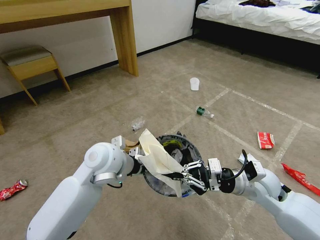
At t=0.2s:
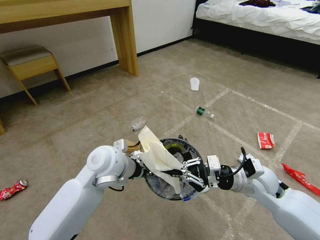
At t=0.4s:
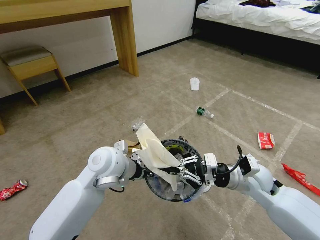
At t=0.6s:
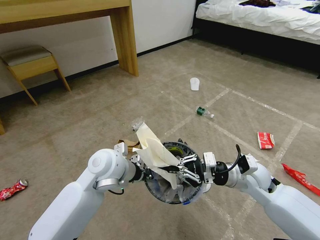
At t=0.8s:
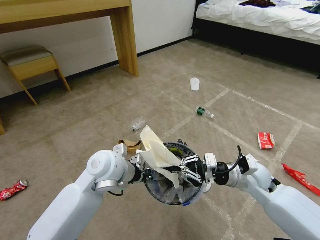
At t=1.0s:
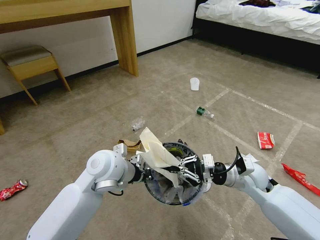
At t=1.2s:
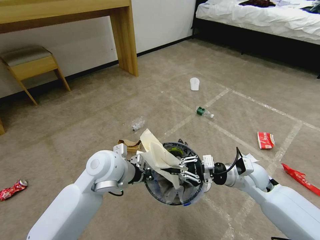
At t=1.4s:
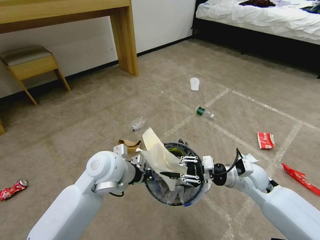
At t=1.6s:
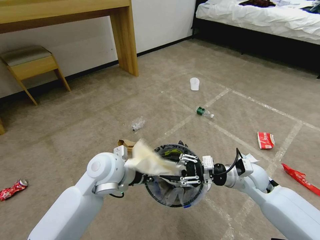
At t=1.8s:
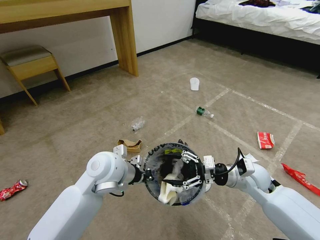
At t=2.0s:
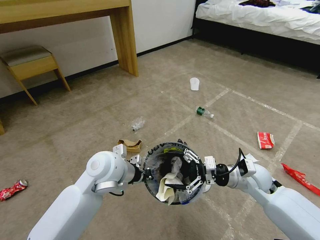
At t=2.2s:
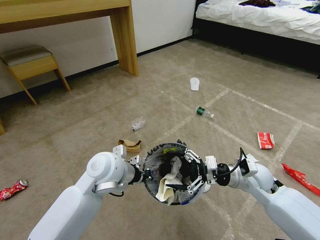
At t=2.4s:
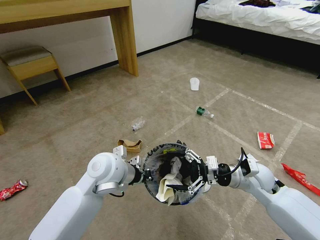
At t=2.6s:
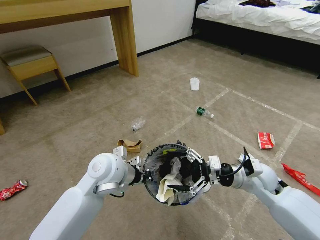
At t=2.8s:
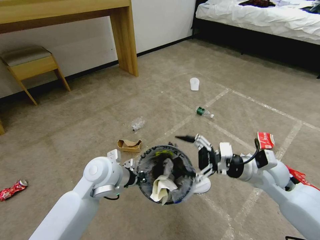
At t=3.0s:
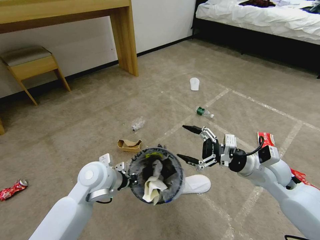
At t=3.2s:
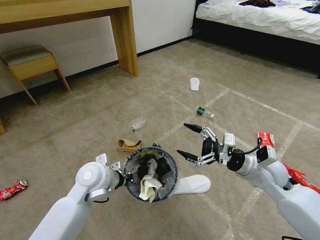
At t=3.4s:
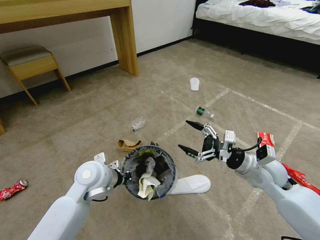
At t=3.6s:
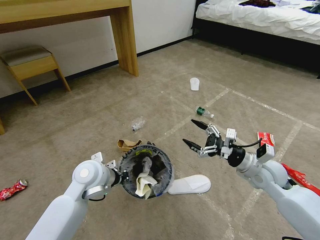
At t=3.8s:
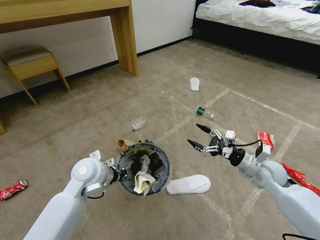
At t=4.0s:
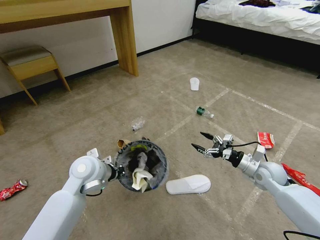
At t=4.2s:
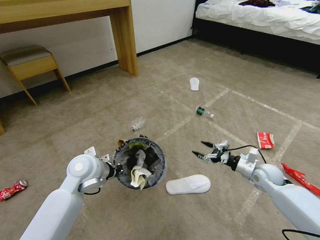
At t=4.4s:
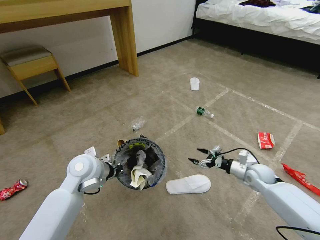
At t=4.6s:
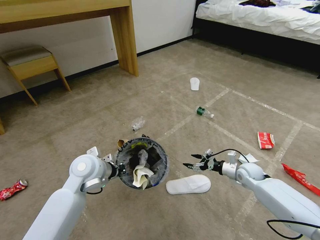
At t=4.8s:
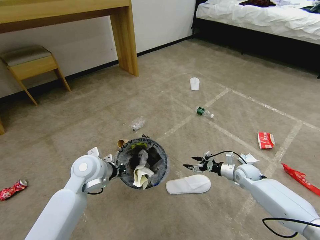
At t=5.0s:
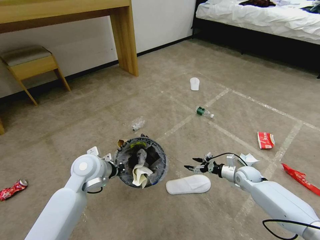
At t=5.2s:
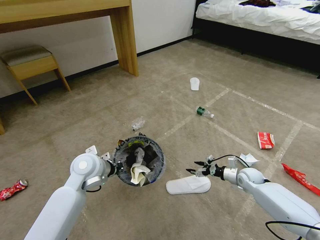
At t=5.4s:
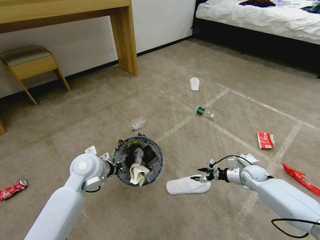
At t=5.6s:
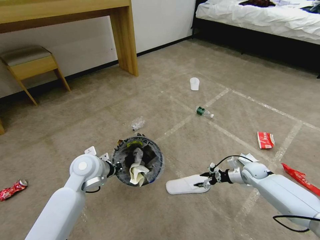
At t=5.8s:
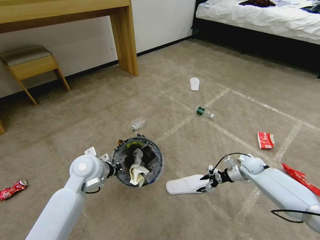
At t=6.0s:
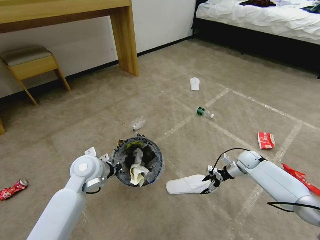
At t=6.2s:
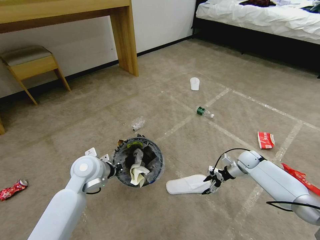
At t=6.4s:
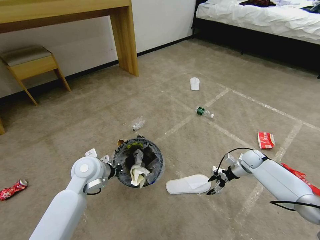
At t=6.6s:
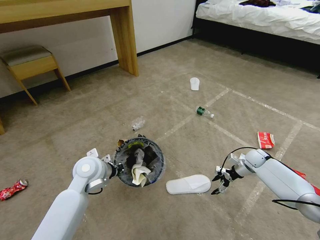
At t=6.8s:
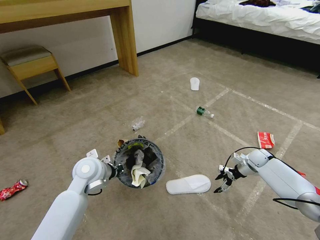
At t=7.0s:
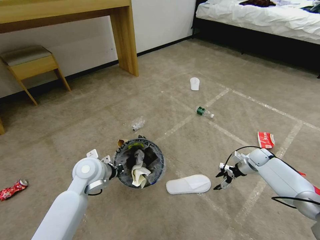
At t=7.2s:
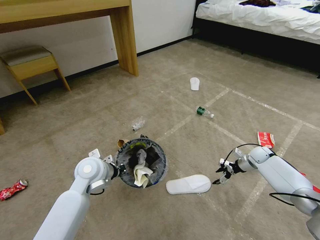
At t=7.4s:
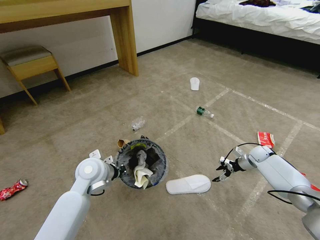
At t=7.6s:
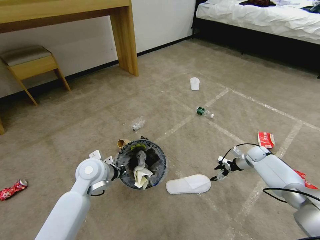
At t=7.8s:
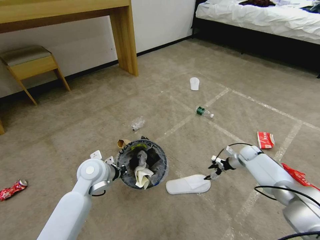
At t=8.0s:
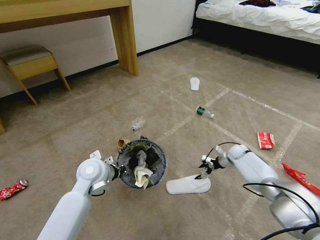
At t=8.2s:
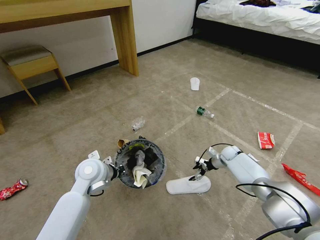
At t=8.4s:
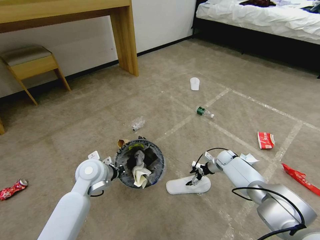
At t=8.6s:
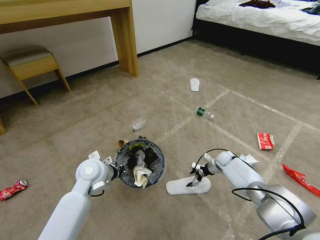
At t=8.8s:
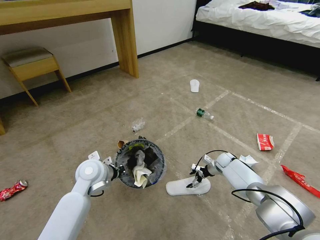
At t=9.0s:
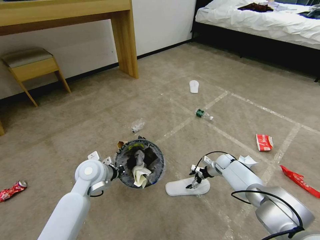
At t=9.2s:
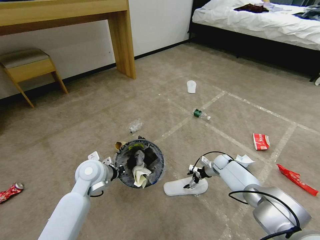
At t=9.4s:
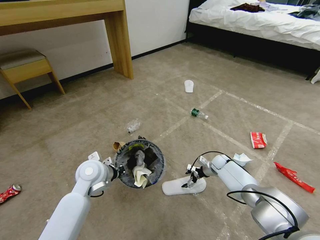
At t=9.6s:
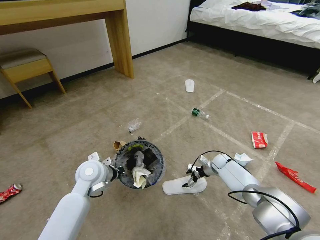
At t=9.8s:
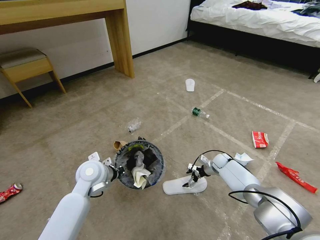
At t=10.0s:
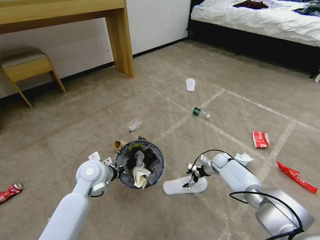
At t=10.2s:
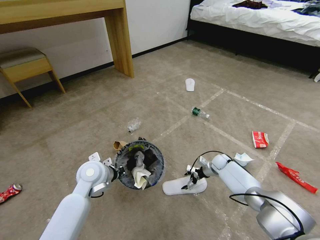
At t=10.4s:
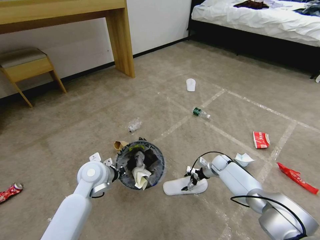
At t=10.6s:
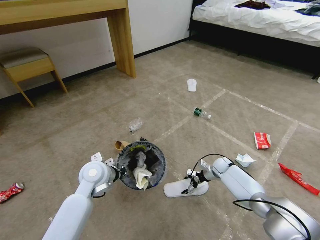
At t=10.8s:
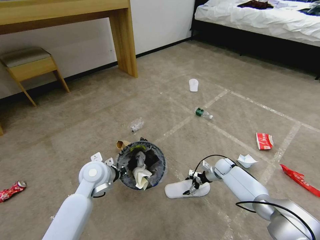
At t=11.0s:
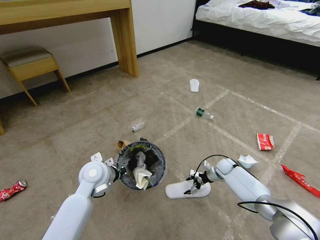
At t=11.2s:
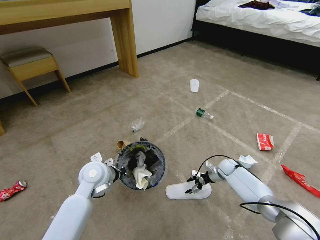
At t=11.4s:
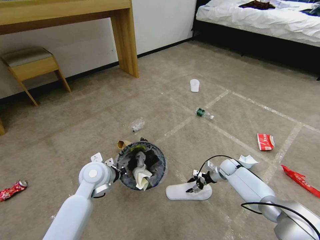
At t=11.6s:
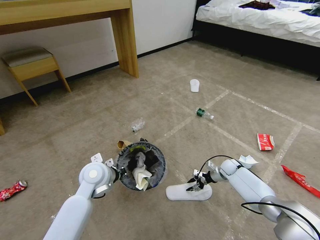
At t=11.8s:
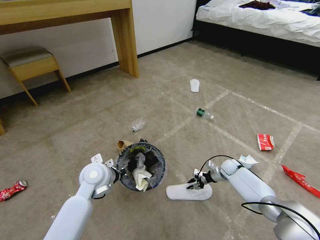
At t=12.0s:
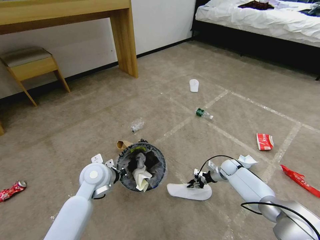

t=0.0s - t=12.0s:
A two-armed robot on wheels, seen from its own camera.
Task of the whole recording: Pick up the trash bin and place the garbage on the floor into it.
t=0.0s - t=1.6s: The right gripper opens its fingers.
t=1.6s - t=3.0s: The left gripper shifts by approximately 5 cm; the right gripper moves upward, approximately 5 cm, and opens up.
t=3.0s - t=4.4s: The right gripper is displaced downward, to the right and forward by about 20 cm. The left gripper ends up approximately 5 cm from where it was.
t=4.4s - t=6.0s: The right gripper heads forward, covering approximately 10 cm.
t=6.0s - t=7.6s: The right gripper is displaced to the right by about 5 cm.
t=7.6s - t=9.0s: The right gripper travels to the left and downward by about 15 cm.
t=9.0s - t=10.4s: The grippers stay close to where they were, moving slightly.
t=10.4s - t=12.0s: The right gripper closes its fingers.

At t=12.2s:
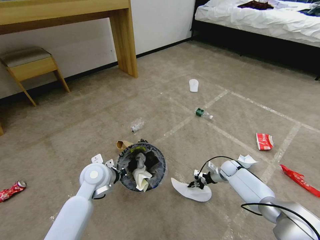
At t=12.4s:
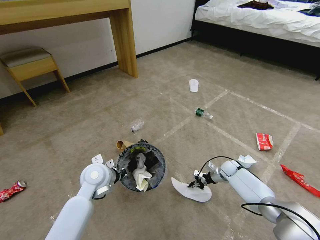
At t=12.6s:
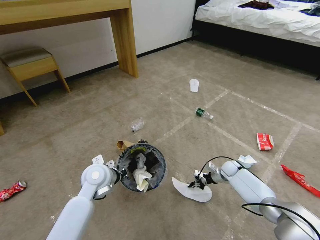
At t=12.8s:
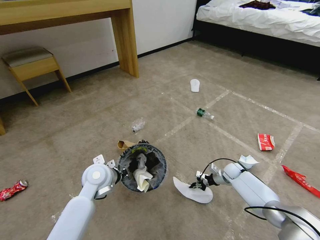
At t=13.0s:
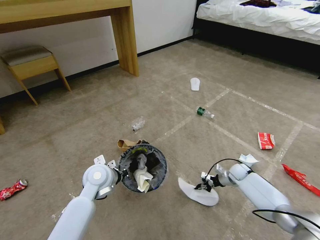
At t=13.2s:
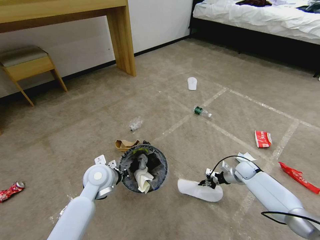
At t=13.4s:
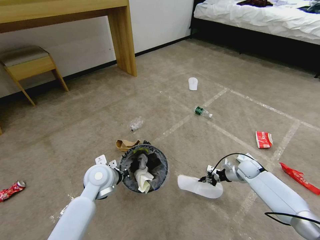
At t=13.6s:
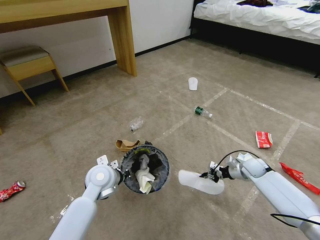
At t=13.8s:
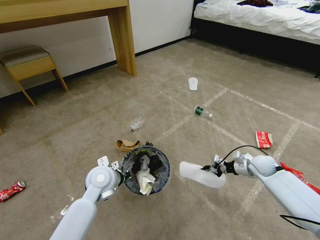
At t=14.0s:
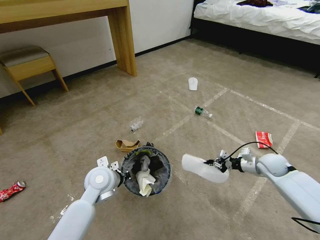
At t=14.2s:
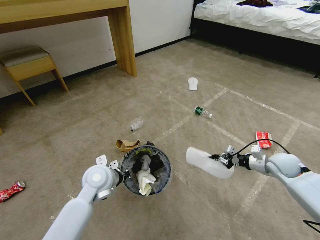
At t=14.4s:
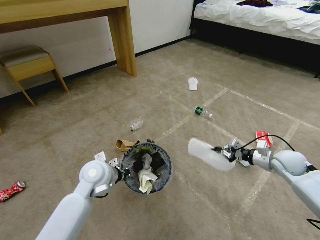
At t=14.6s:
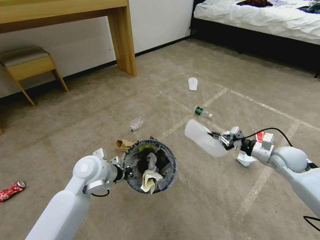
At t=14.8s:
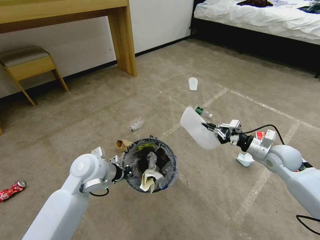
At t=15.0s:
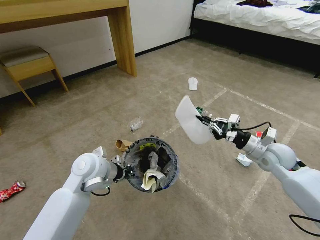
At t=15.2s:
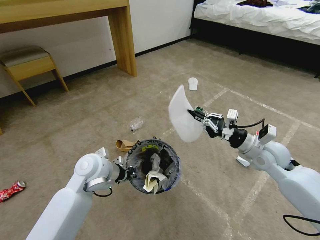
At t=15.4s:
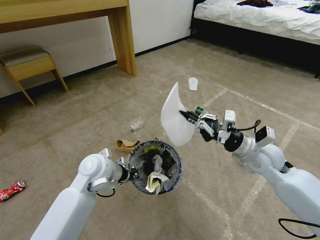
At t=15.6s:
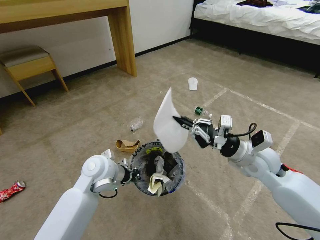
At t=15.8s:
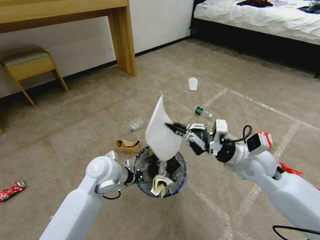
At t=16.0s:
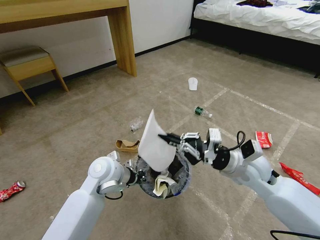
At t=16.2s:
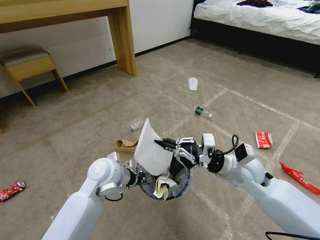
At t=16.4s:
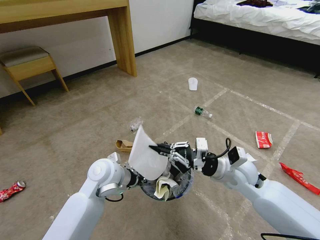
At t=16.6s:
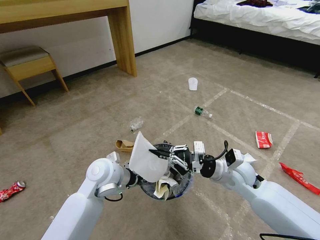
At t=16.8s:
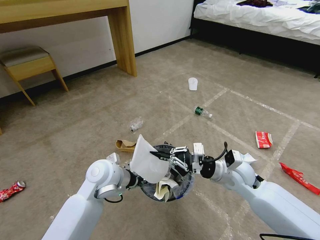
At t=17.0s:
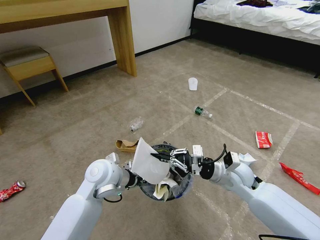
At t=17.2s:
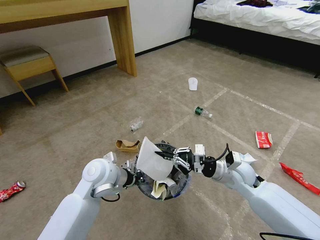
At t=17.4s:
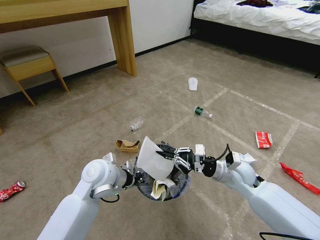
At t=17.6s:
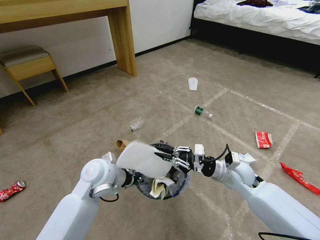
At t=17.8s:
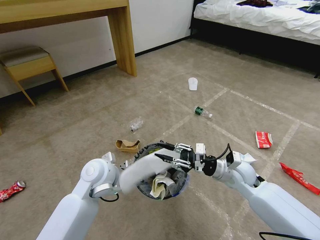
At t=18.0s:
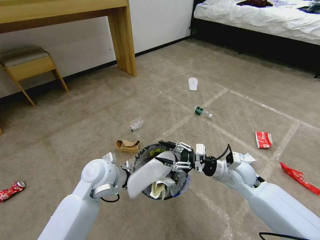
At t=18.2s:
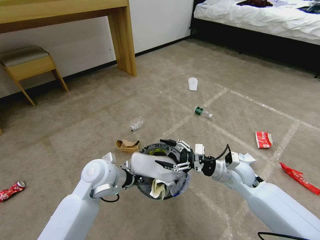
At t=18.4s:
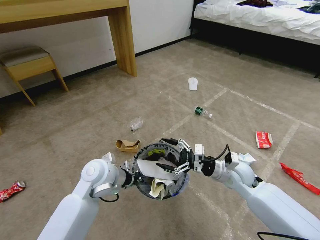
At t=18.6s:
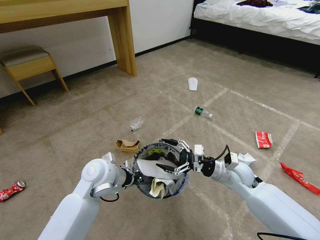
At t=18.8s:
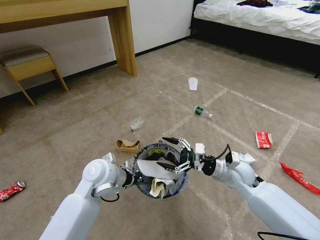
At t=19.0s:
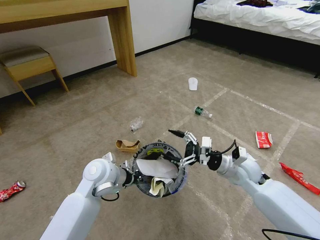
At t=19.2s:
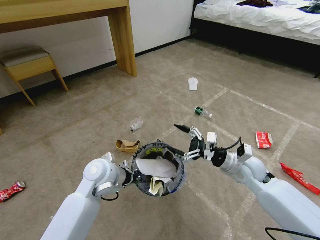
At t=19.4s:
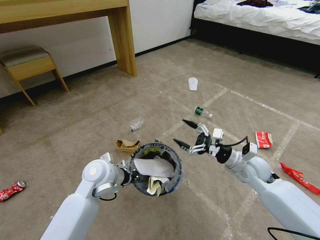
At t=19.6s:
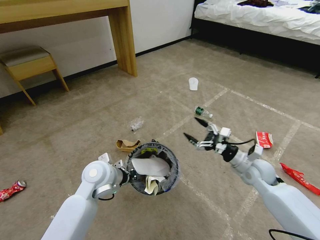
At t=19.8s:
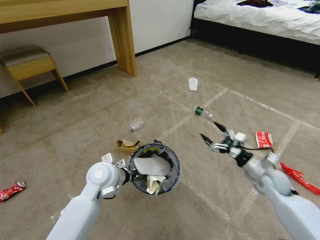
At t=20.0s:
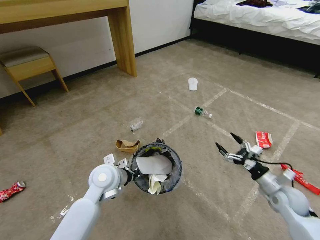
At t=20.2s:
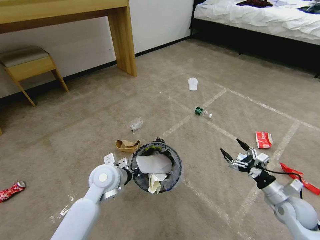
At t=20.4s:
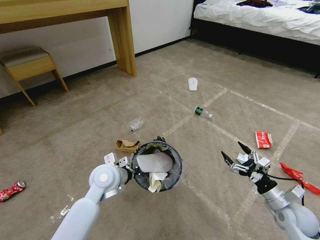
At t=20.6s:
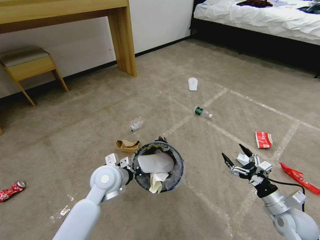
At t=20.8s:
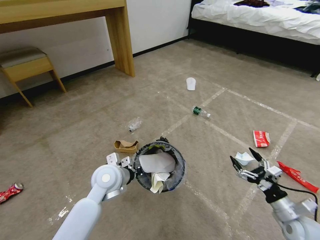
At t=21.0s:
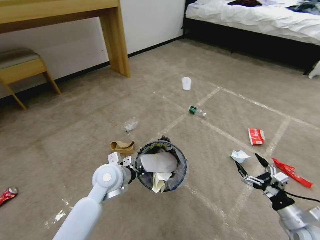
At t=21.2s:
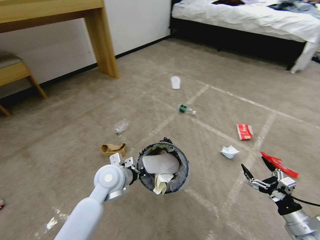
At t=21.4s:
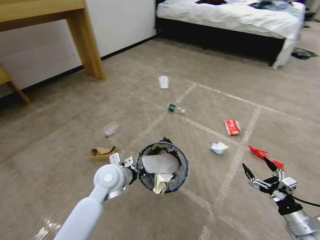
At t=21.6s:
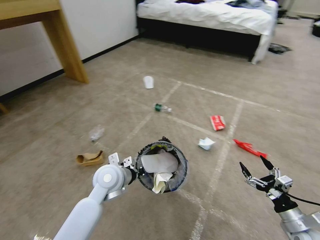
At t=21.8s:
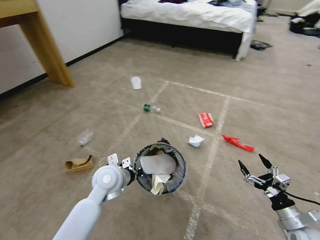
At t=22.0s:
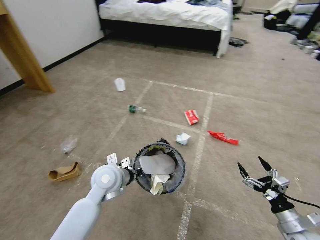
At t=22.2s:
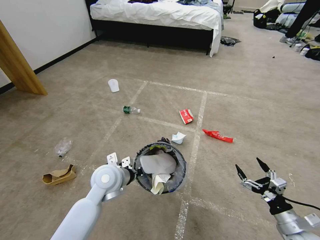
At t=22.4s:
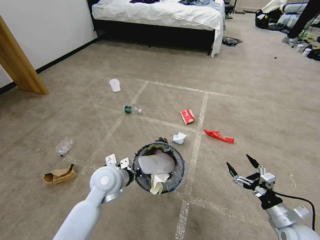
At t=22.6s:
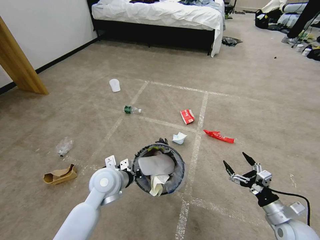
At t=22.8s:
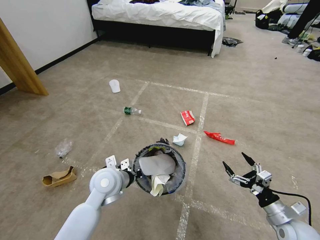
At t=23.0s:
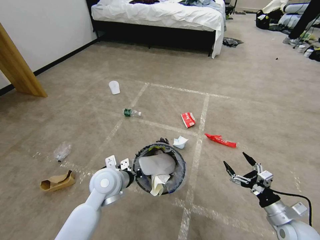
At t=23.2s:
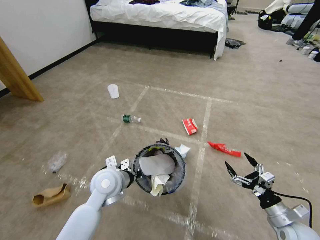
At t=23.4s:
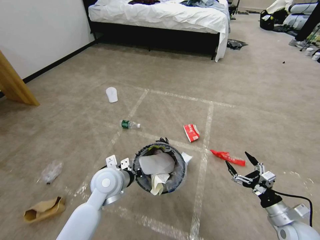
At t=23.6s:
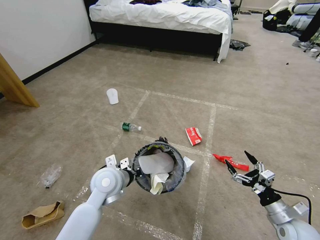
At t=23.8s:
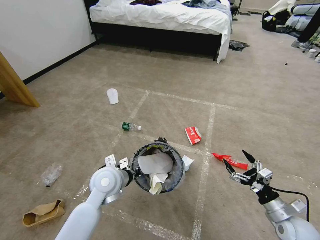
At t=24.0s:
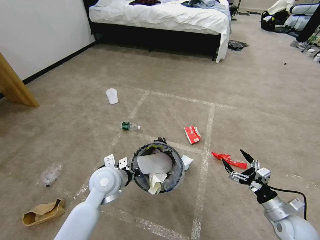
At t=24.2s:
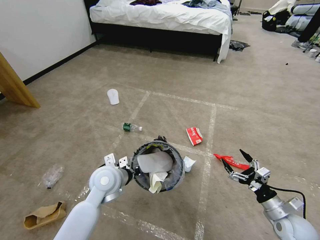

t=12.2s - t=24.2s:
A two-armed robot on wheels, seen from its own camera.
Task of the whole recording: Pick up the trash bin and place the garbage on the floor into it.
t=12.2s - t=13.8s: The right gripper shifts approximately 15 cm upward and to the right.
t=13.8s - t=15.2s: The left gripper heads upward, covering some 5 cm, while the right gripper shifts about 20 cm upward and to the left.
t=15.2s - t=16.6s: The right gripper is displaced to the left by roughly 10 cm.
t=16.6s - t=18.2s: The right gripper ends up roughly 5 cm from where it was, and opens its fingers.
t=18.2s - t=19.8s: The right gripper travels to the right by some 15 cm.
t=19.8s - t=21.2s: The right gripper is displaced backward by roughly 15 cm.
t=21.2s - t=22.6s: The right gripper shifts by roughly 5 cm.
